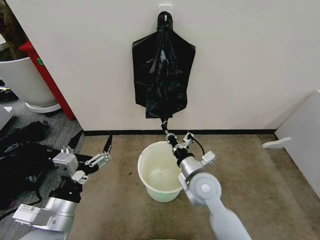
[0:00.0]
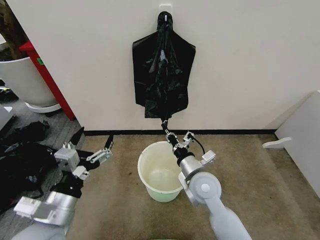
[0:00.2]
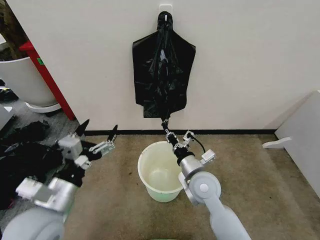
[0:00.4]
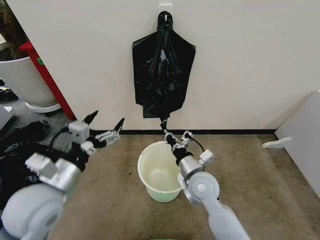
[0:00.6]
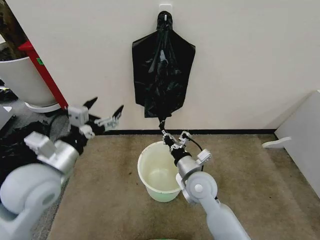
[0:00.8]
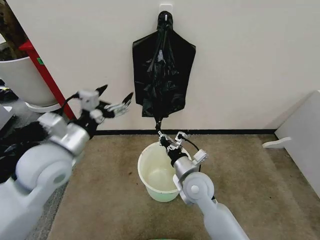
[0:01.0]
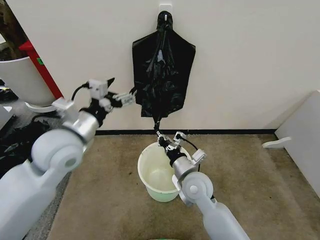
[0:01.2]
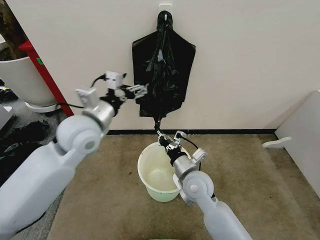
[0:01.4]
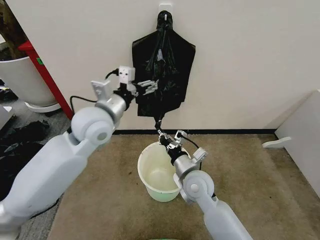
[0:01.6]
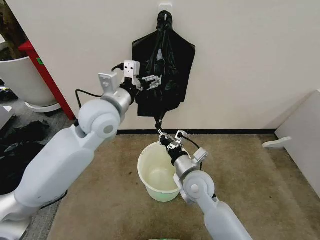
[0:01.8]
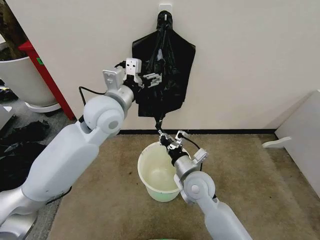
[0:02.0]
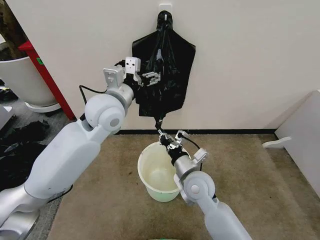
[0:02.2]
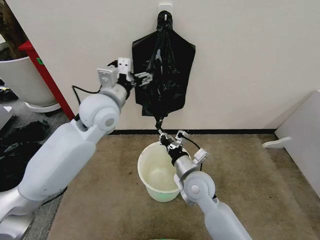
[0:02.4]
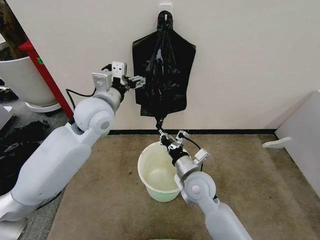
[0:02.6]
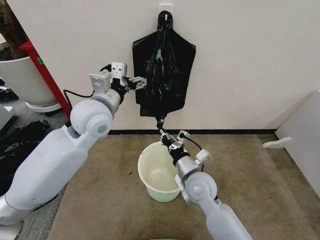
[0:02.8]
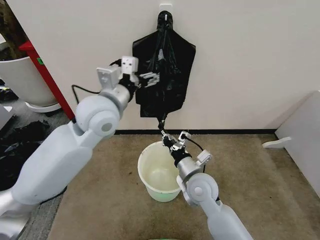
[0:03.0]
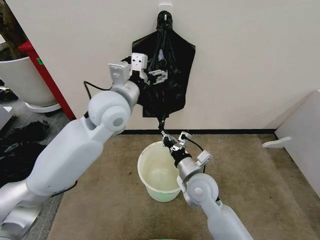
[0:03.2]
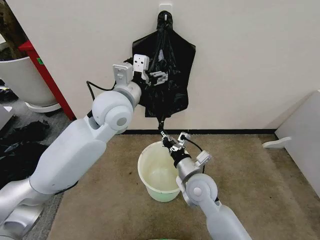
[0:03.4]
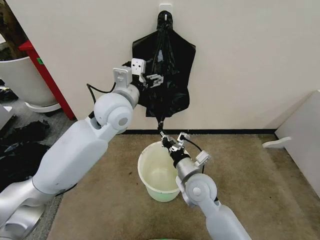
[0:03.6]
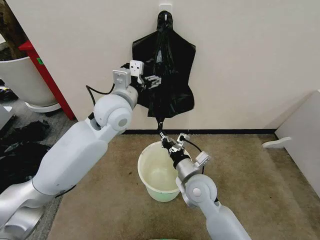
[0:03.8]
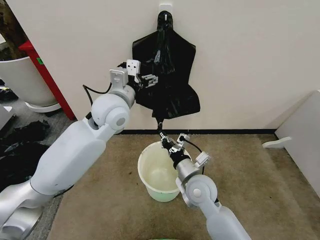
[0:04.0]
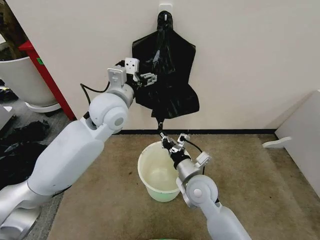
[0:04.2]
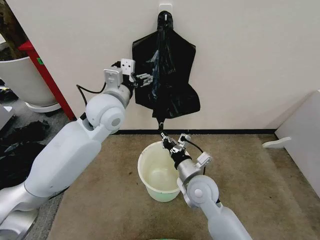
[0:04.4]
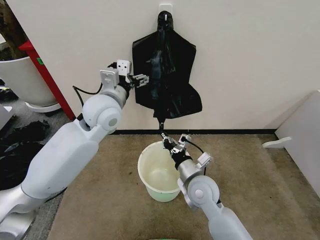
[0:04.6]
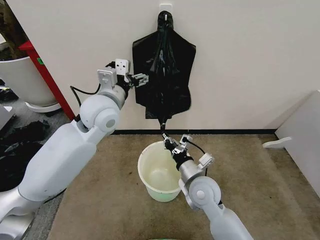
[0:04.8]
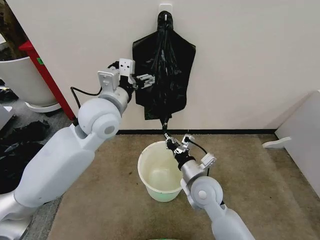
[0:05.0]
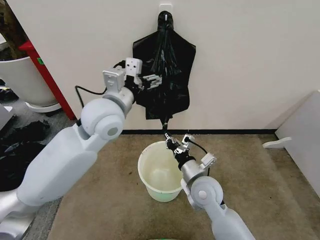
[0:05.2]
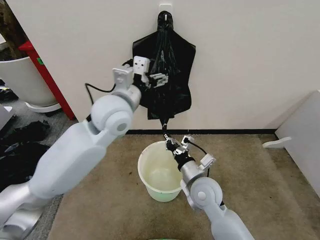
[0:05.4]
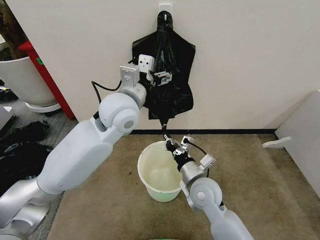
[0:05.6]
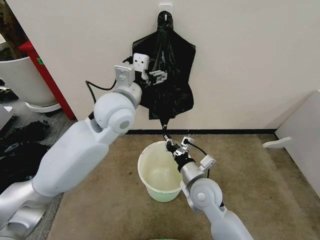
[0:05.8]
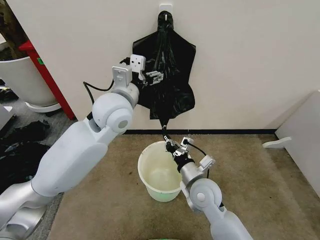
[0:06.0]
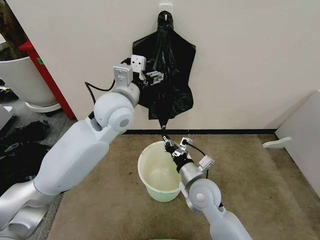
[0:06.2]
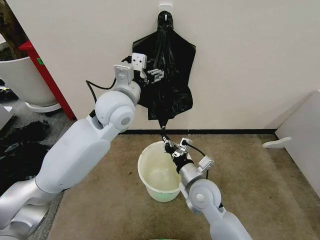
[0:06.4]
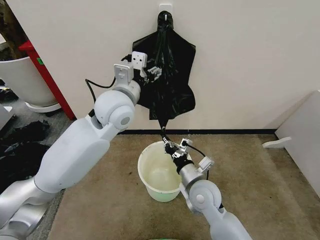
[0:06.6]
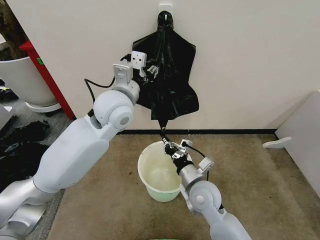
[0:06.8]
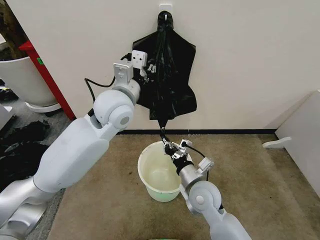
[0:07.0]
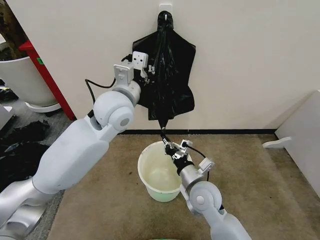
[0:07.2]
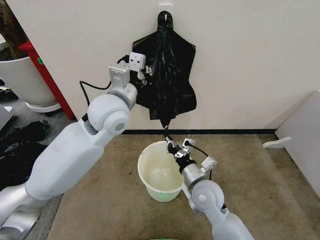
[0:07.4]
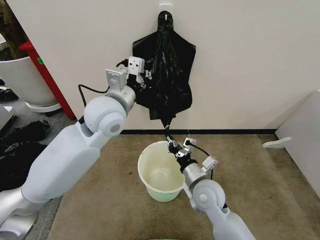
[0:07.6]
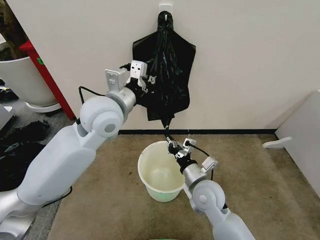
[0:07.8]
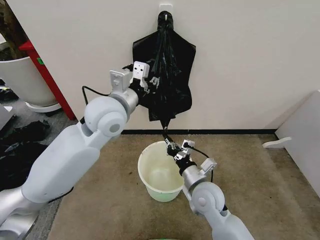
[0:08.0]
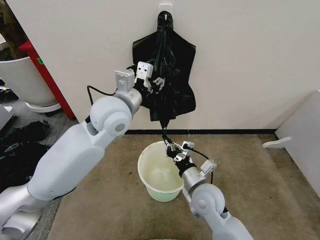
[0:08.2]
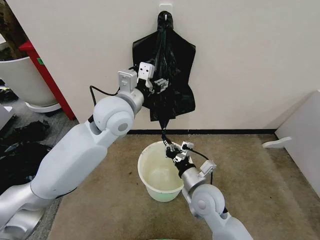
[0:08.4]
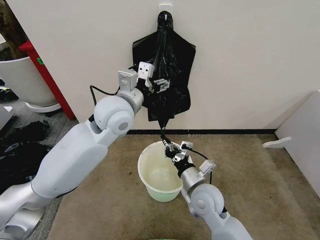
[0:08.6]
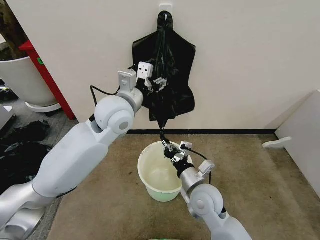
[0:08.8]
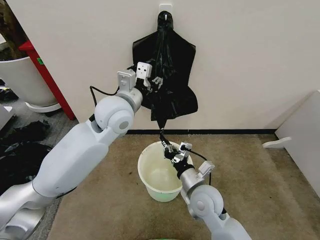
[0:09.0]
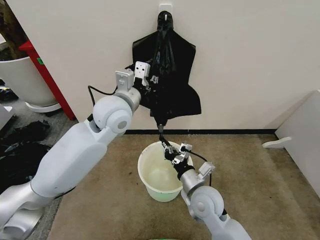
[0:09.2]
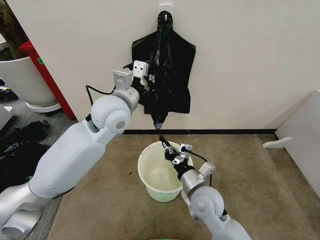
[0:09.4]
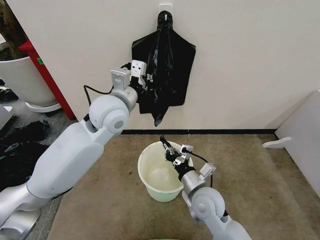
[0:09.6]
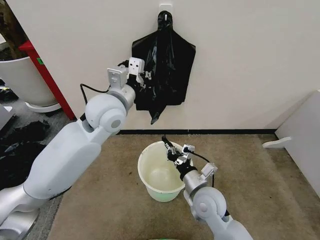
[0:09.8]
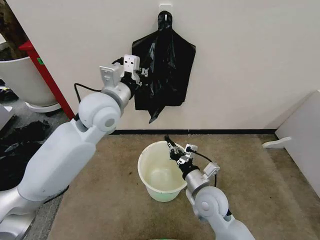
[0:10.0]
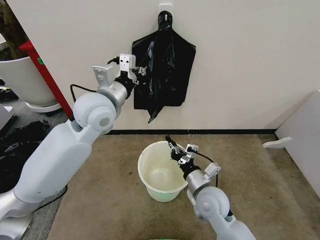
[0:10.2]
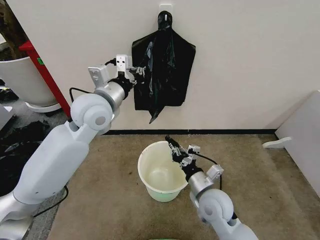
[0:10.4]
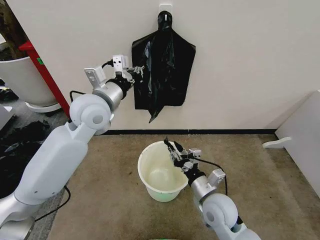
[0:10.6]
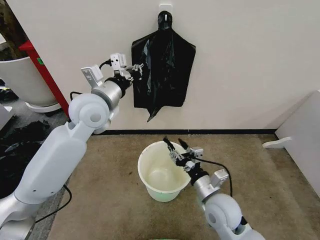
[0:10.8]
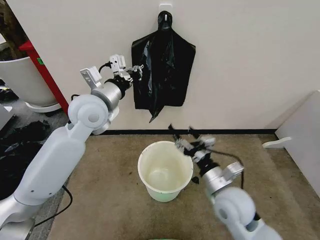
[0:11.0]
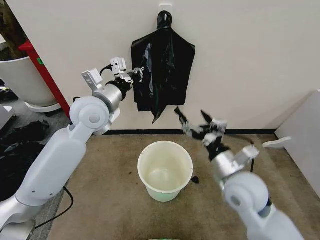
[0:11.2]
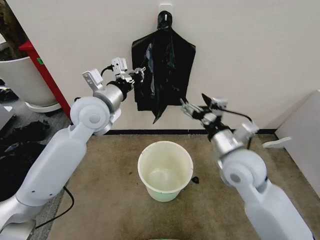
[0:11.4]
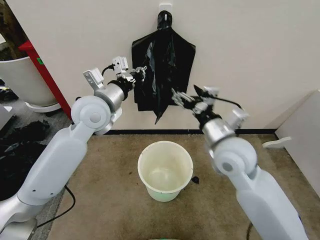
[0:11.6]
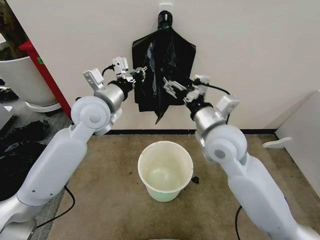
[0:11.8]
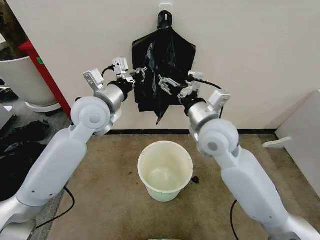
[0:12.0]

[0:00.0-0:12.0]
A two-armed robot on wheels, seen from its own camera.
Task of the whole recording: Place the garbage bag over the trash bin.
0:00.0 to 0:01.6: The left gripper moves forward and upward, about 25 cm.
0:01.6 to 0:03.0: There are only small adjustments of the grippers.
0:03.0 to 0:06.0: The grippers stay close to where they were, moving slightly.
0:06.0 to 0:07.6: The left gripper closes its fingers.
0:07.6 to 0:09.0: The left gripper opens up.
0:09.0 to 0:10.4: The left gripper is displaced to the left by some 5 cm, and closes.
0:10.4 to 0:12.0: The right gripper goes approximately 20 cm upward and forward, and opens.

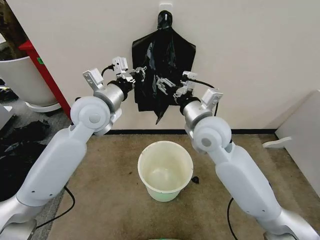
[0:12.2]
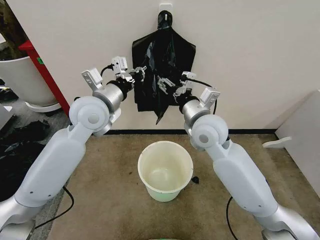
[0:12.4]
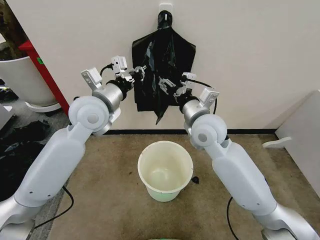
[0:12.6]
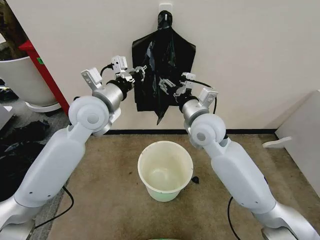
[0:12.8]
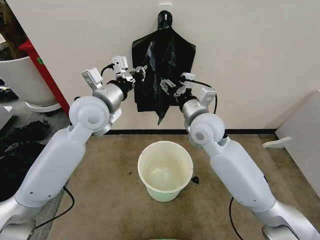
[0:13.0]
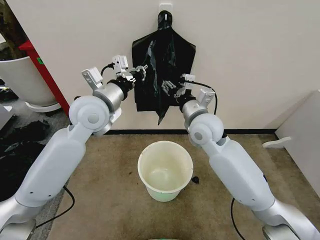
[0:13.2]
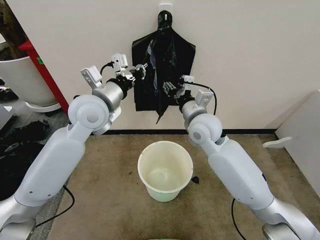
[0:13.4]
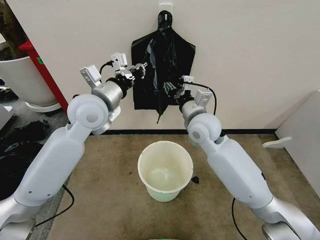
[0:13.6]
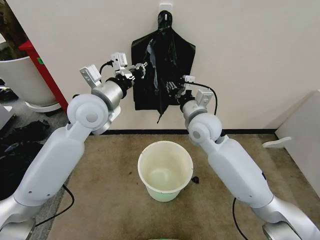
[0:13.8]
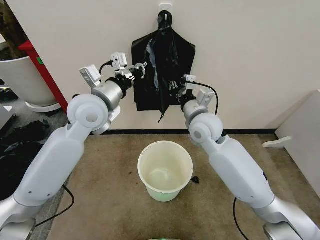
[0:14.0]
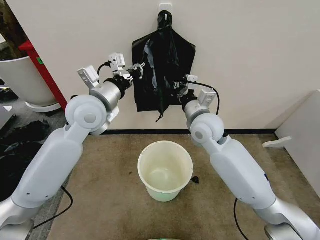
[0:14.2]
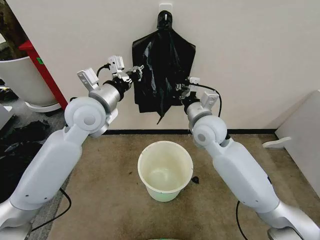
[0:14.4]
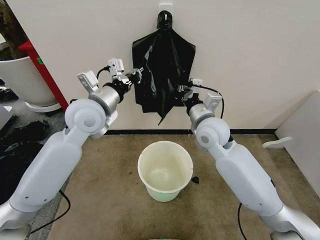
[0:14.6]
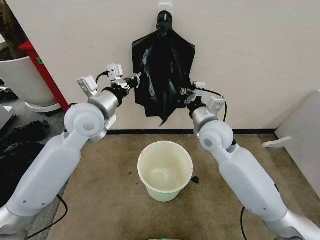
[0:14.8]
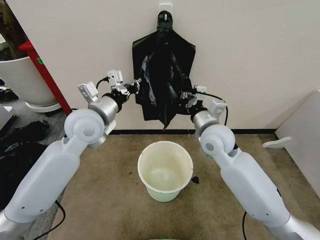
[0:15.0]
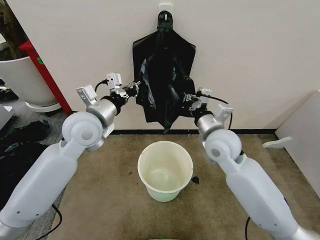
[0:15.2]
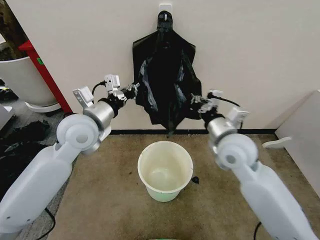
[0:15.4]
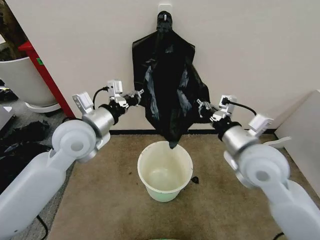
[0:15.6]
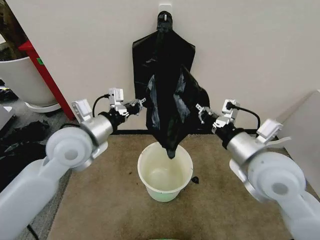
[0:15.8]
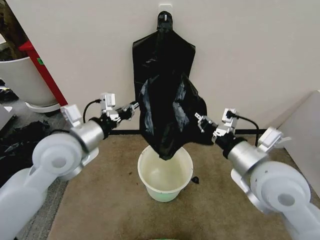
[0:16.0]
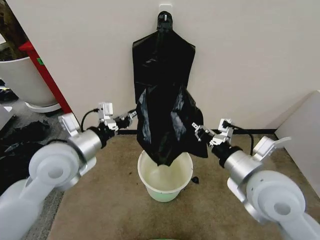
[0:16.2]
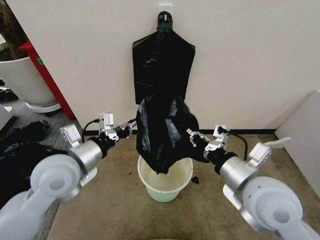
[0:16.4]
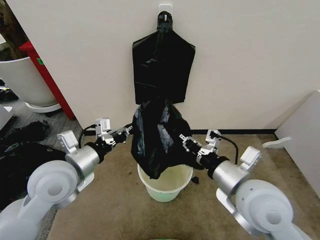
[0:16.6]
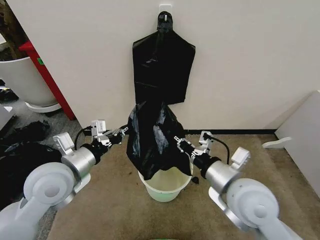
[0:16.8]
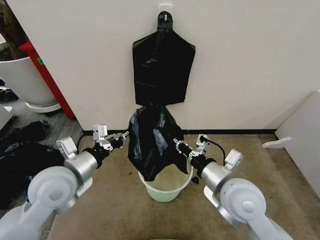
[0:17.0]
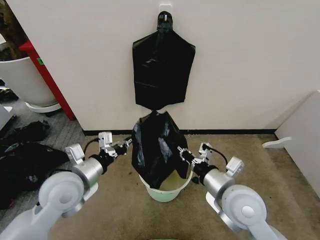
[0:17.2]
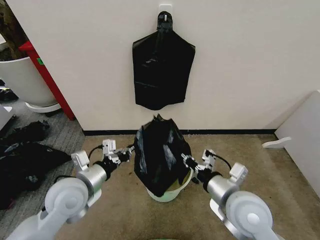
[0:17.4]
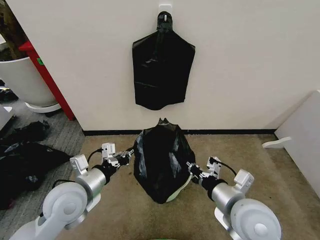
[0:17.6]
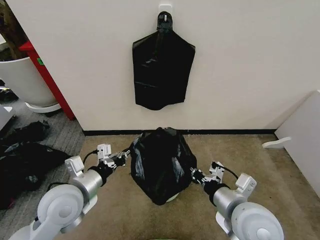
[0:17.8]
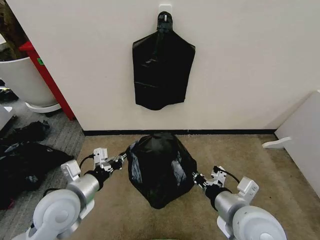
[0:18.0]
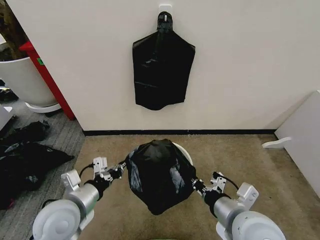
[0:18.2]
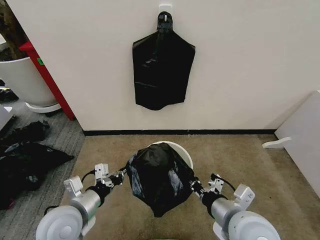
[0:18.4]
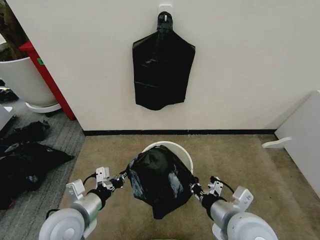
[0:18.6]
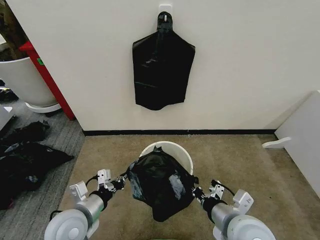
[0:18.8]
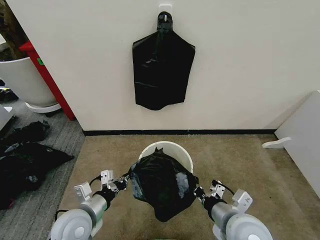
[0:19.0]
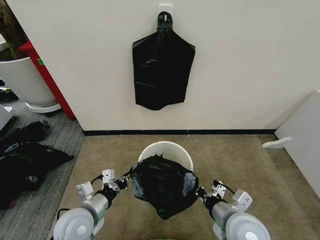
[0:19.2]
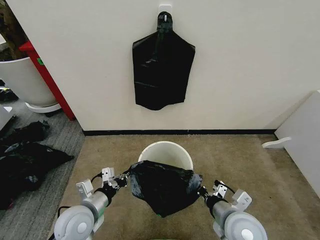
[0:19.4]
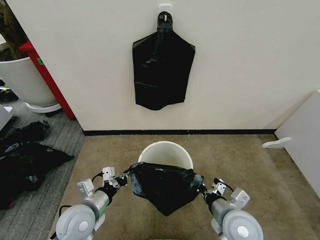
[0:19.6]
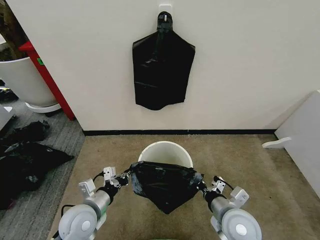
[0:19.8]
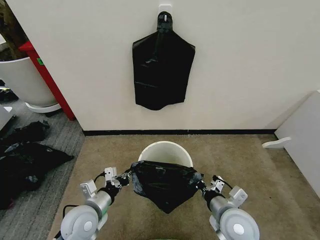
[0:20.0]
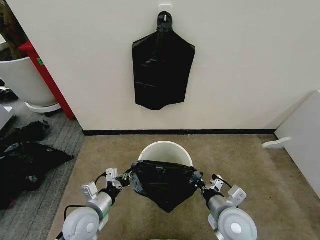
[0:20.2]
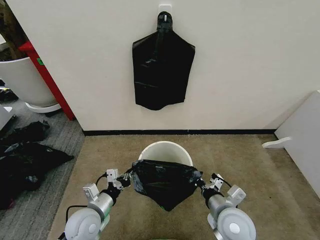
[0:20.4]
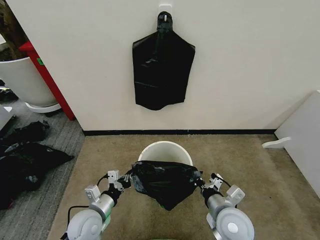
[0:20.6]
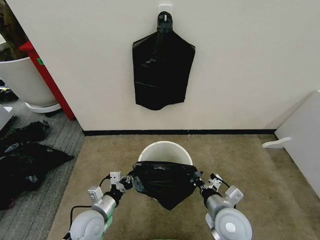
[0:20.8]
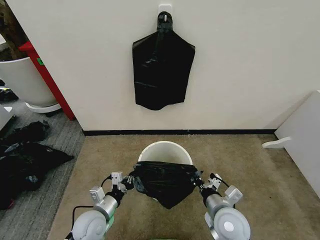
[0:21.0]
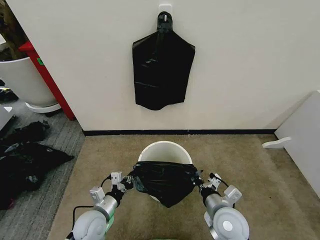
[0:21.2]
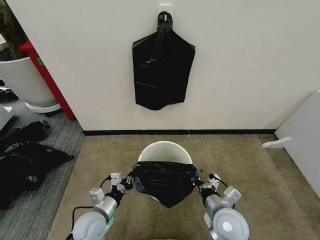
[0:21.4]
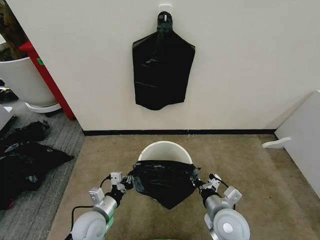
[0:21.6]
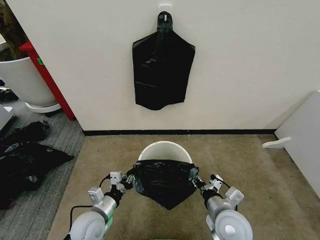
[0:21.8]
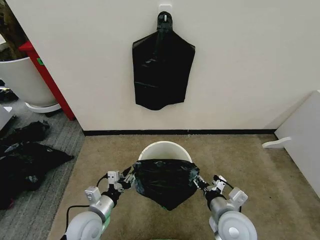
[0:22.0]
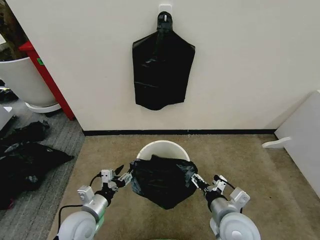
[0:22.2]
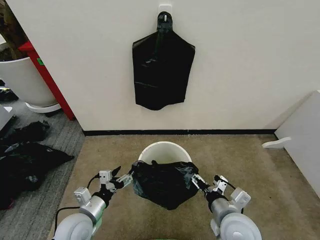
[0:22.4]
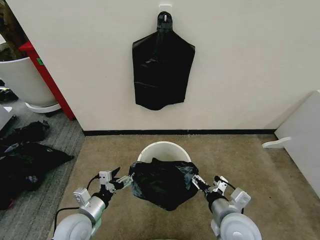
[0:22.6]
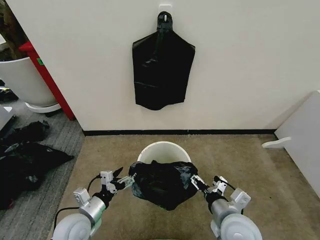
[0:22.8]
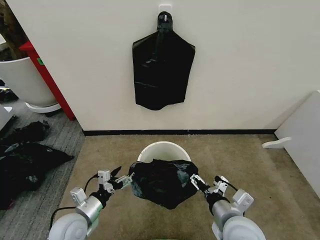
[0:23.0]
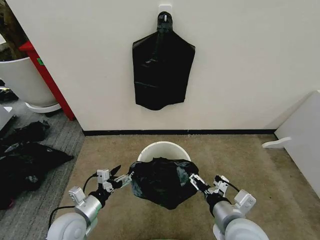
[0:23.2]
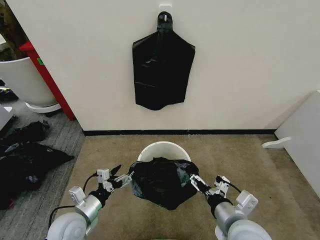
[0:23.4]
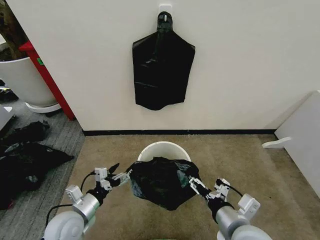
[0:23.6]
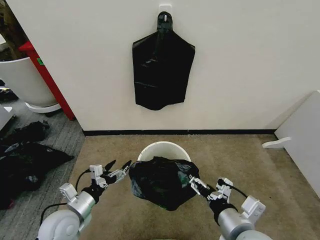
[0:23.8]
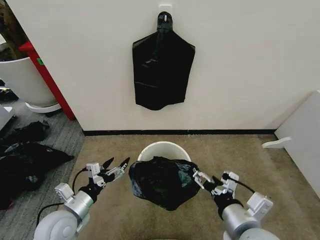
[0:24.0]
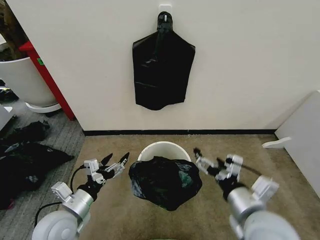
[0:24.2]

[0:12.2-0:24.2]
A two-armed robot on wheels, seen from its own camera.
Task of the whole recording: Place the garbage bag over the trash bin.
0:12.2 to 0:13.8: The right gripper moves forward, approximately 5 cm, and closes up.
0:13.8 to 0:15.2: The right gripper goes roughly 5 cm backward, and closes its fingers.
0:15.2 to 0:16.6: The left gripper moves backward and downward, roughly 10 cm. Meanwhile the right gripper shifts some 15 cm backward.
0:16.6 to 0:18.2: The left gripper shifts some 10 cm downward and backward. Meanwhile the right gripper heads downward, covering approximately 5 cm.
0:18.2 to 0:19.8: Both grippers move downward, roughly 10 cm.
0:19.8 to 0:21.2: The left gripper goes roughly 10 cm downward.
0:21.2 to 0:22.6: The left gripper shifts by about 5 cm, and opens its fingers. The right gripper opens.
0:22.6 to 0:24.2: The two grippers go some 10 cm upward.
